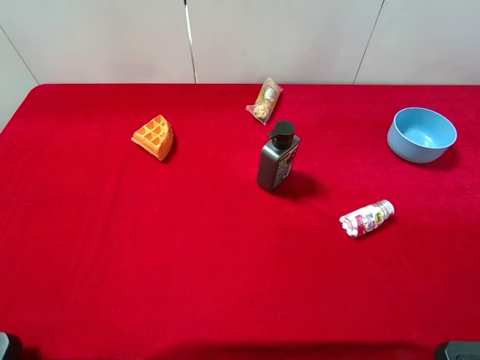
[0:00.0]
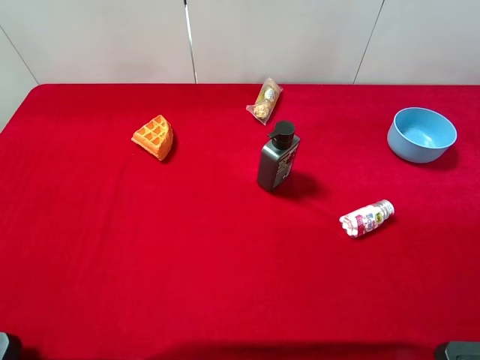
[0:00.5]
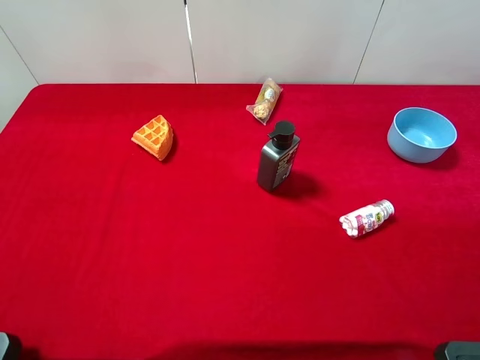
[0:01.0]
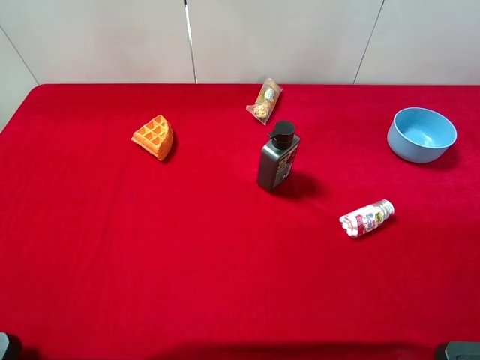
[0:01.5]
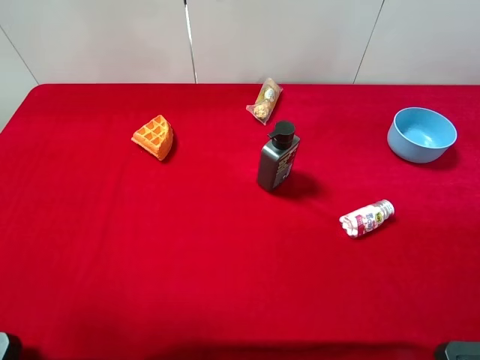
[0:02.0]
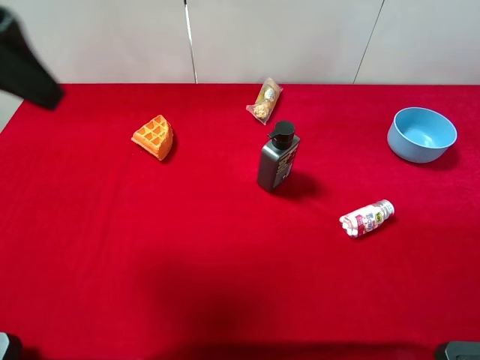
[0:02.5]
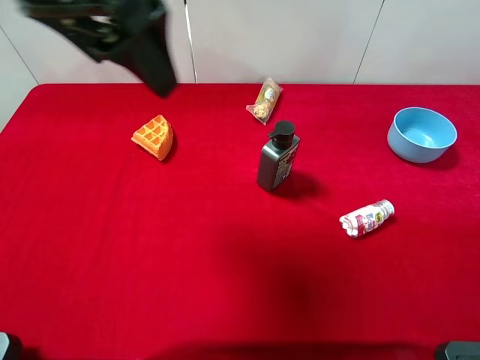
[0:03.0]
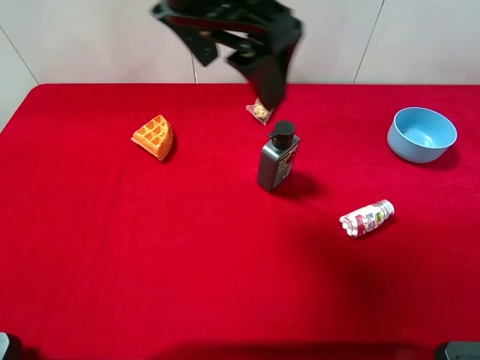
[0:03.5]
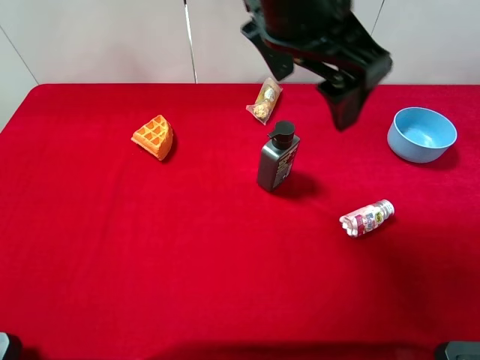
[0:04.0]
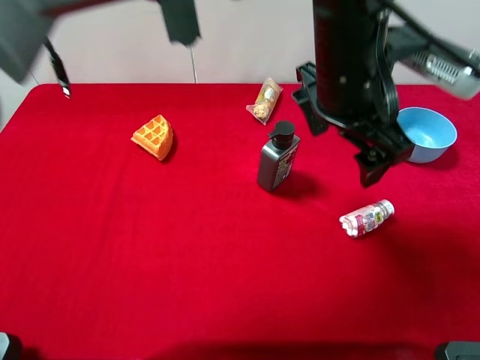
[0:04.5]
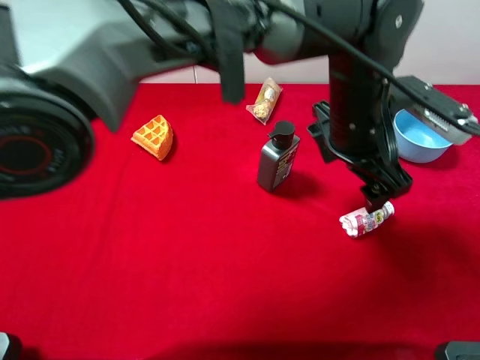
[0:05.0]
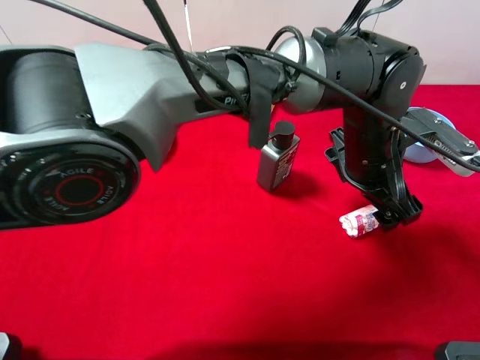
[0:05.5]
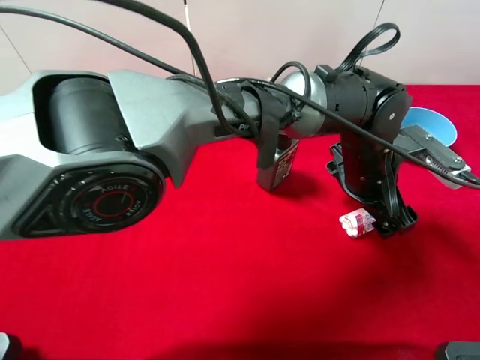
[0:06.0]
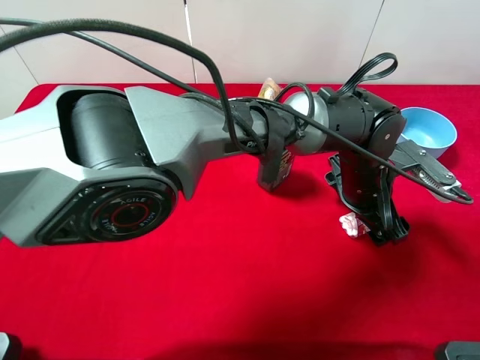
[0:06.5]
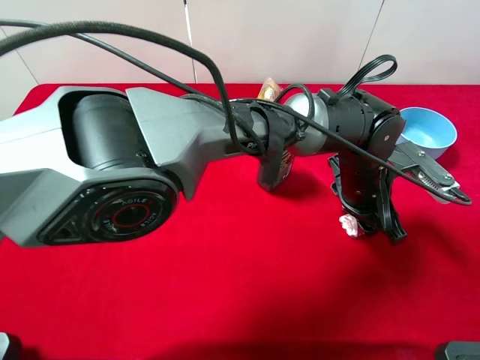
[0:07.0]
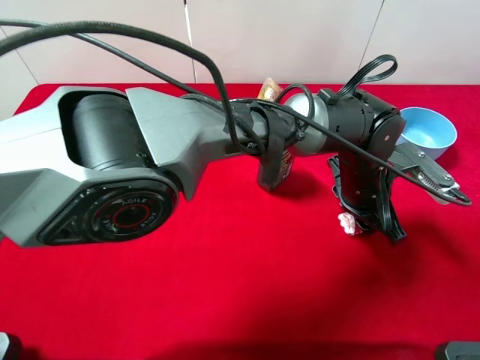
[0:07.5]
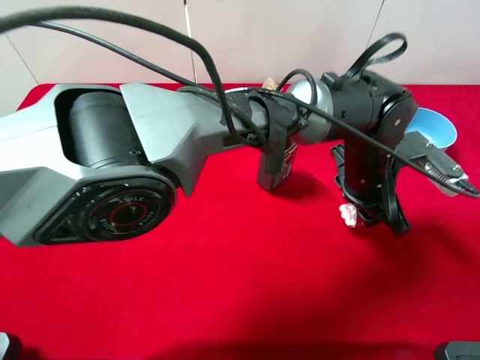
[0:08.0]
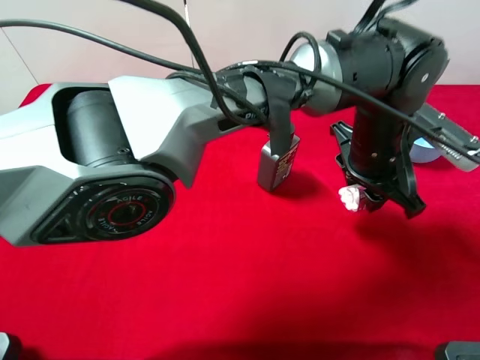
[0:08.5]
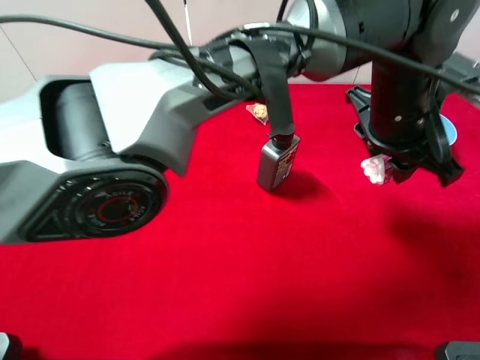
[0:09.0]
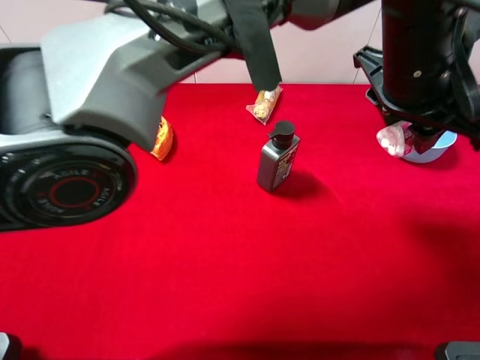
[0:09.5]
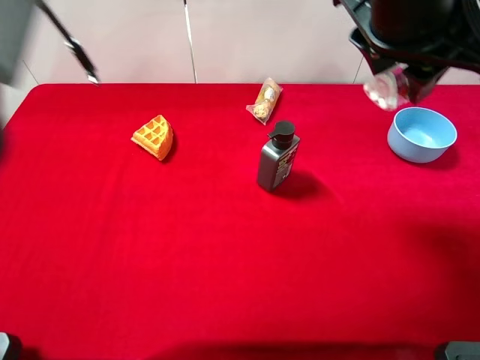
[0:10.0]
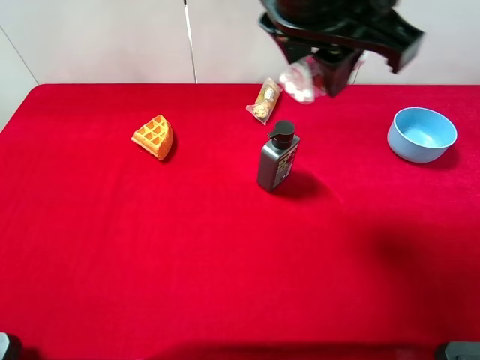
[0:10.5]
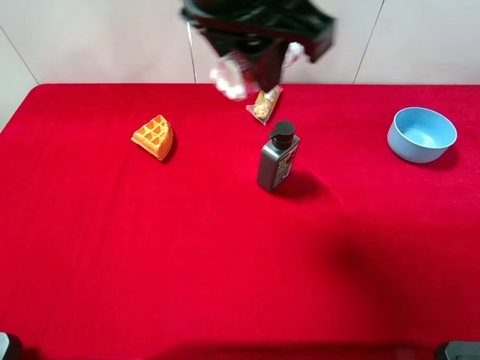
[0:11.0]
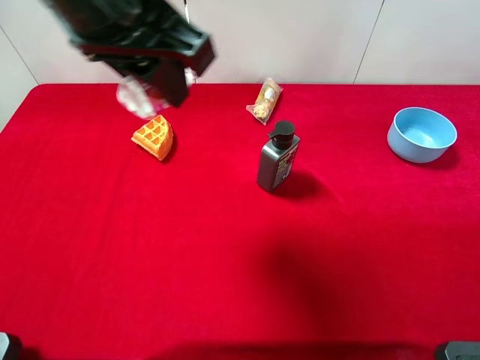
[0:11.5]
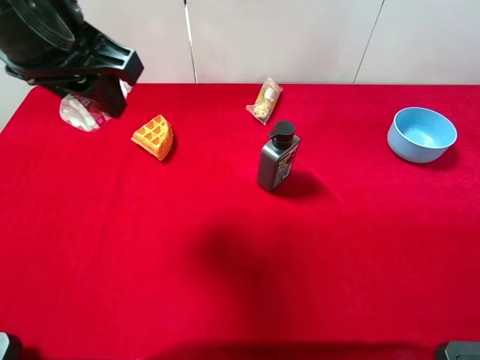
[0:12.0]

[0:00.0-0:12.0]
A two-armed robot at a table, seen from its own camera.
Task of the whole recording: the gripper move the object.
Step, 0:00.0 to 0:07.0: Grasp the mint candy with the left gripper.
0:02.0 to 0:04.0: The left gripper goes some 35 cm to the right and forward.
0:04.0 to 0:06.0: The left gripper travels downward and to the right by roughly 25 cm.
0:06.0 to 0:08.0: The left gripper closes its fingers.
0:08.0 to 0:10.0: The left gripper travels upward by roughly 20 cm.
0:10.0 to 0:12.0: The left gripper goes roughly 30 cm to the left.

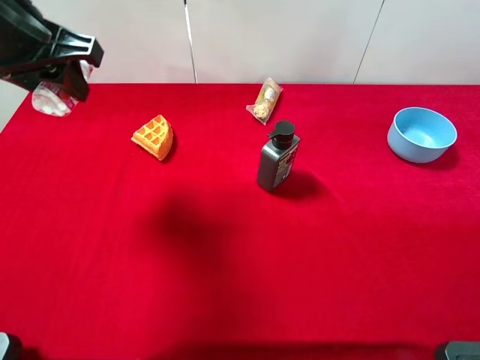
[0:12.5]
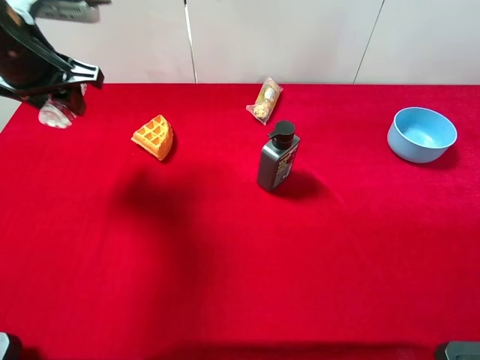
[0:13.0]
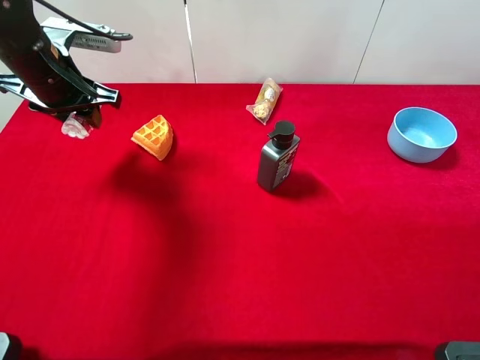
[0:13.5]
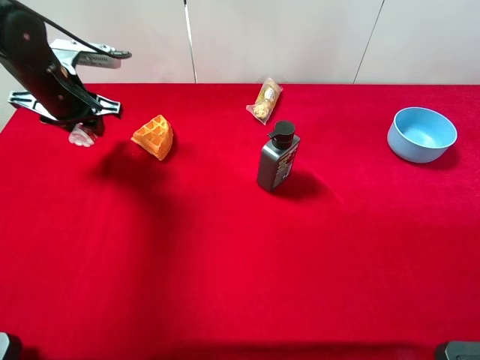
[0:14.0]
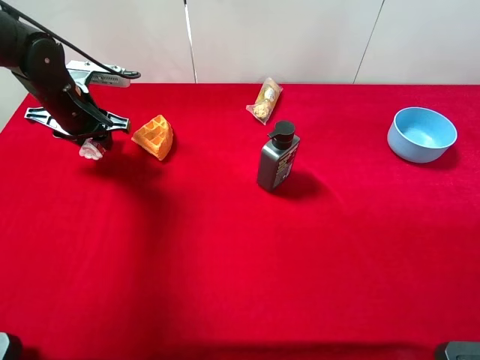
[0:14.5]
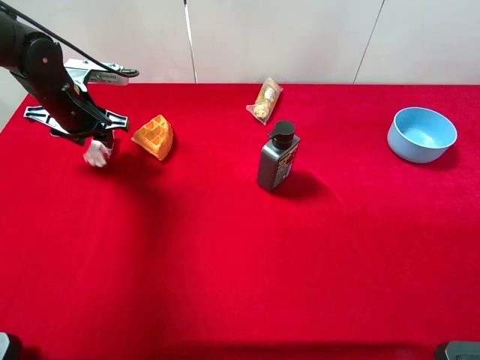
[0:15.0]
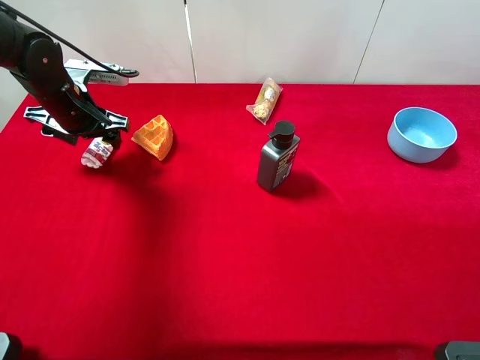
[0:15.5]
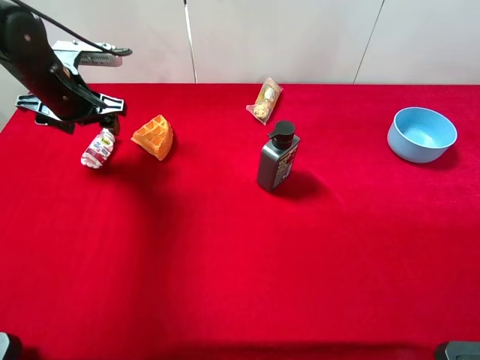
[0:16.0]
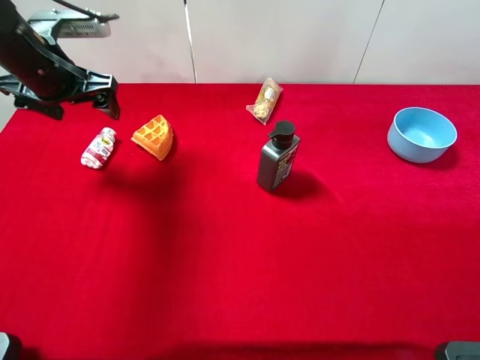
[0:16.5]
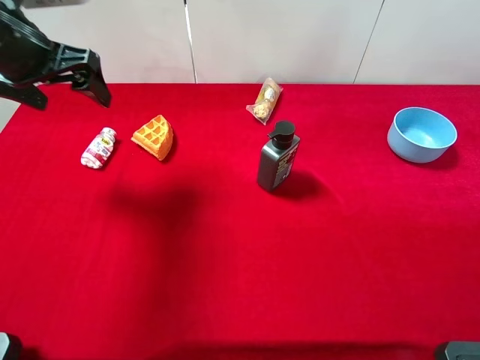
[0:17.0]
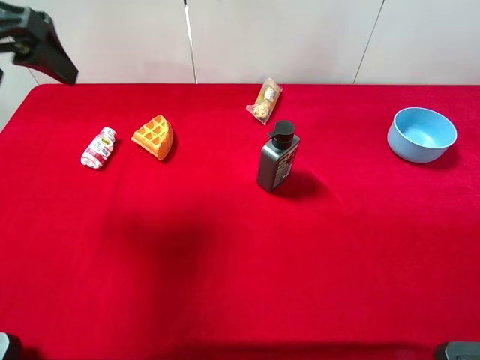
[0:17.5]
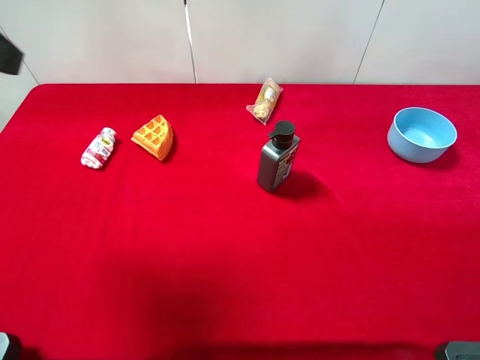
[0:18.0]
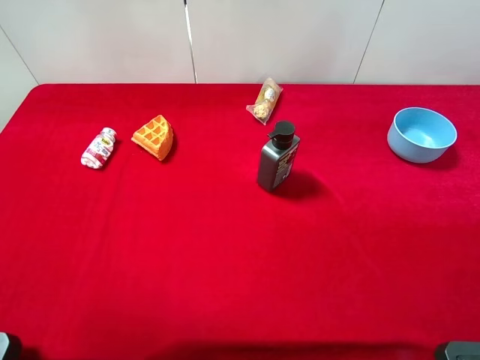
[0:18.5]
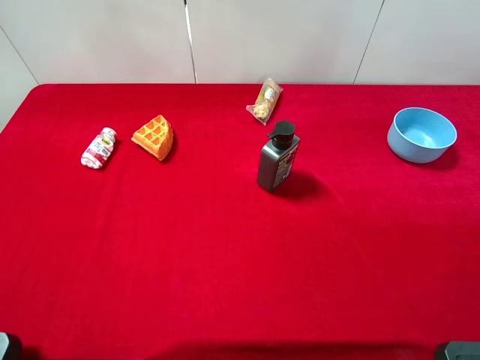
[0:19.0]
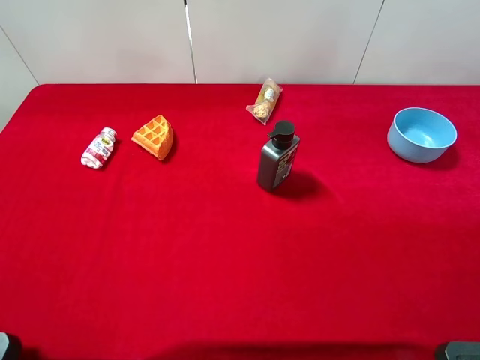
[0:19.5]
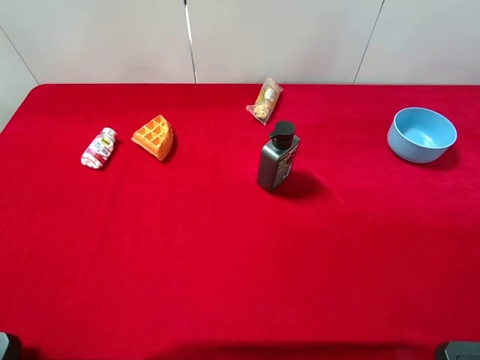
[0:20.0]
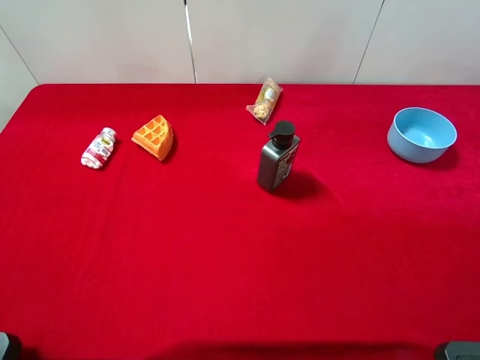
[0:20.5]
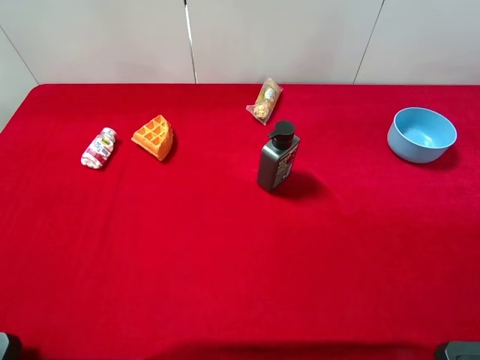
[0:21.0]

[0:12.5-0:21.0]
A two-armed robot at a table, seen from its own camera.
Task of the whole recording: the gripper move the object.
Step, 0:12.5 to 0:16.0: Place the mint candy on the table with the left gripper.
0:12.5 to 0:14.5: The left gripper moves downward and forward, some 20 cm.
0:14.5 to 0:16.5: The left gripper goes about 5 cm upward, and opens up.
0:16.5 to 0:19.0: The left gripper heads backward and upward, covering about 35 cm.
